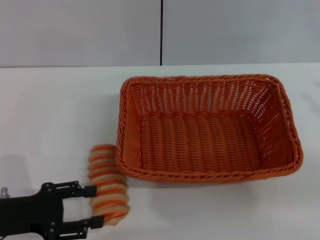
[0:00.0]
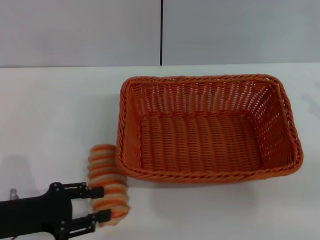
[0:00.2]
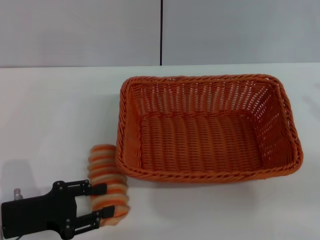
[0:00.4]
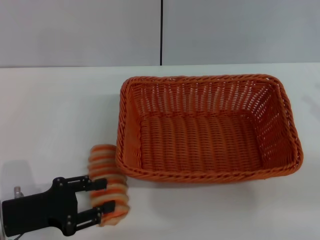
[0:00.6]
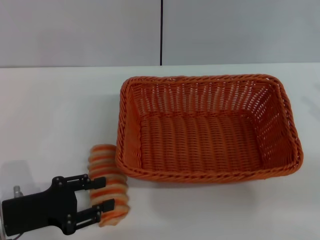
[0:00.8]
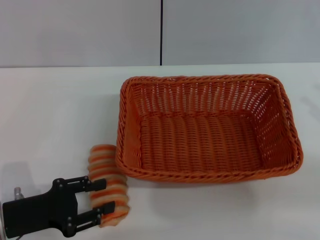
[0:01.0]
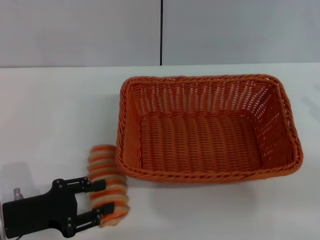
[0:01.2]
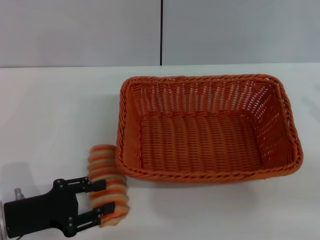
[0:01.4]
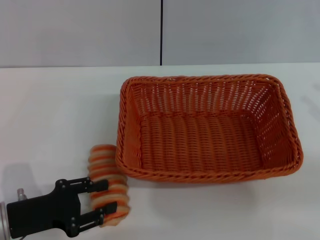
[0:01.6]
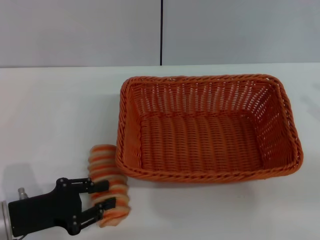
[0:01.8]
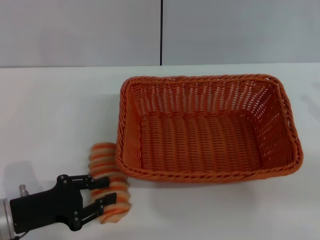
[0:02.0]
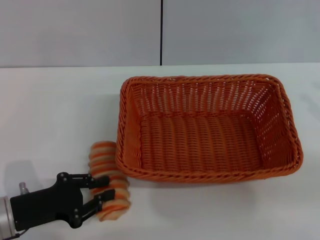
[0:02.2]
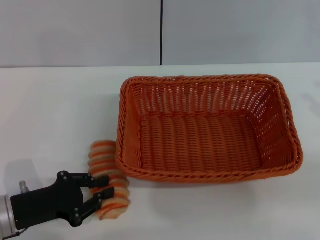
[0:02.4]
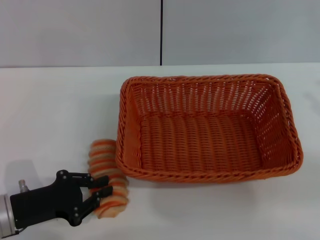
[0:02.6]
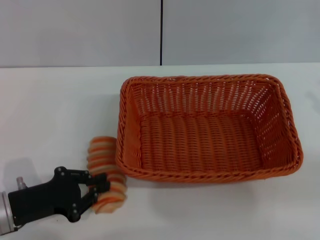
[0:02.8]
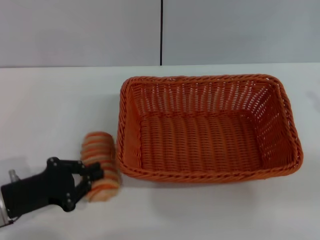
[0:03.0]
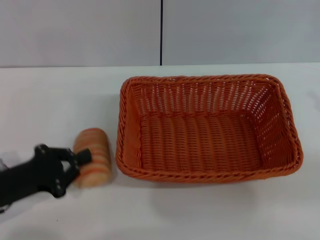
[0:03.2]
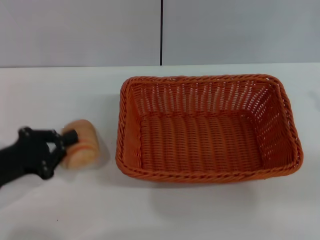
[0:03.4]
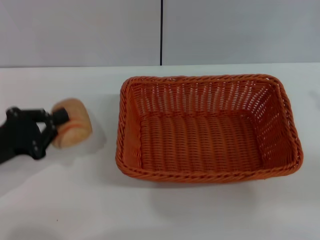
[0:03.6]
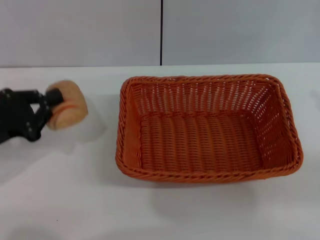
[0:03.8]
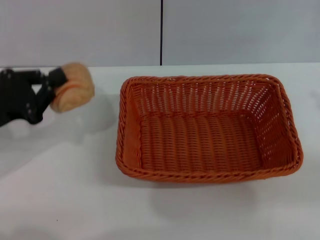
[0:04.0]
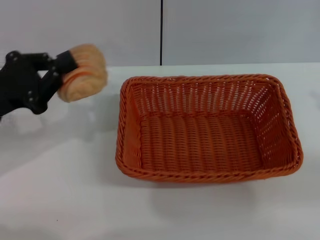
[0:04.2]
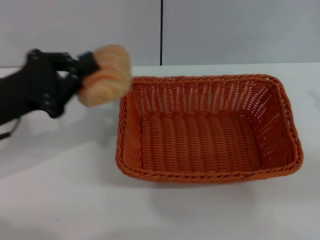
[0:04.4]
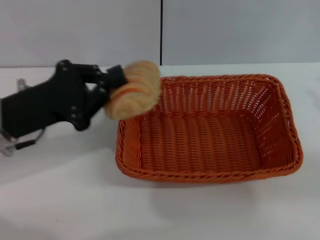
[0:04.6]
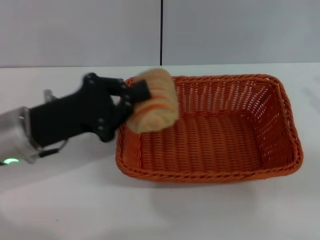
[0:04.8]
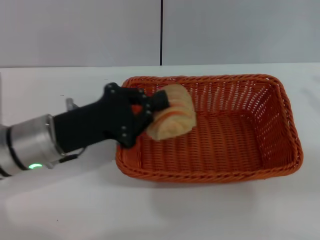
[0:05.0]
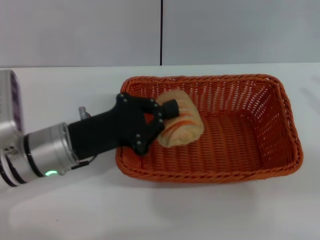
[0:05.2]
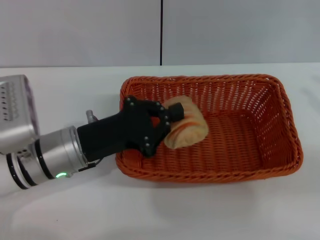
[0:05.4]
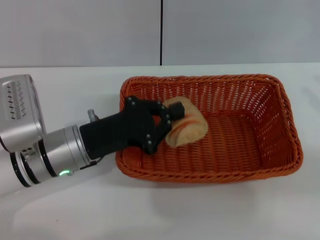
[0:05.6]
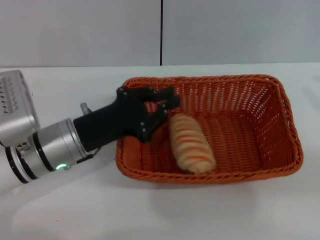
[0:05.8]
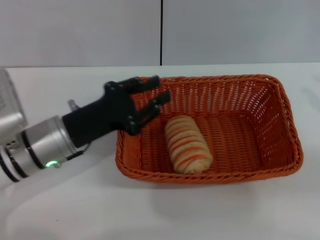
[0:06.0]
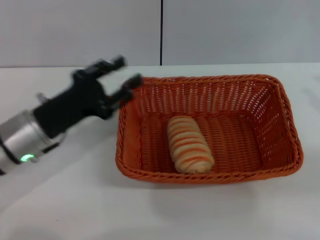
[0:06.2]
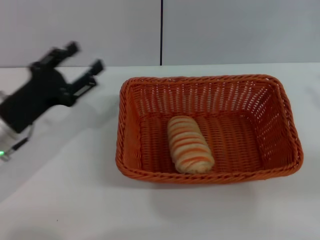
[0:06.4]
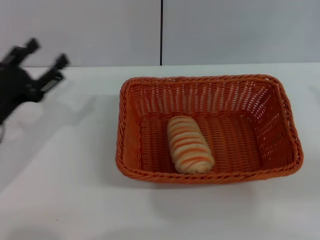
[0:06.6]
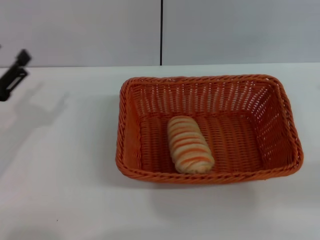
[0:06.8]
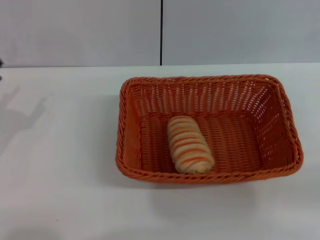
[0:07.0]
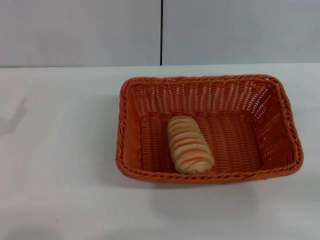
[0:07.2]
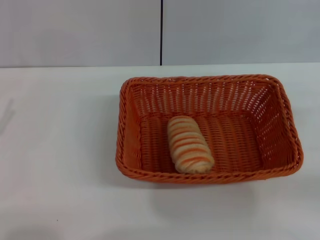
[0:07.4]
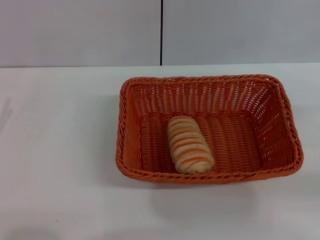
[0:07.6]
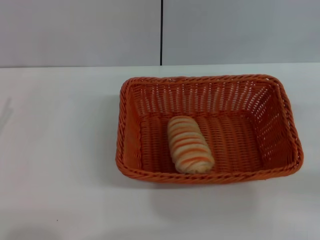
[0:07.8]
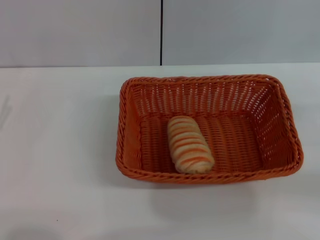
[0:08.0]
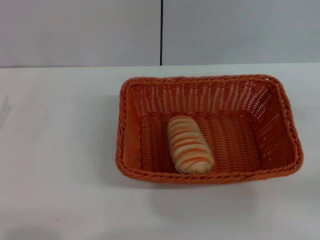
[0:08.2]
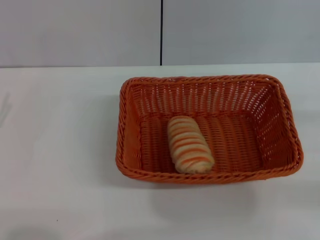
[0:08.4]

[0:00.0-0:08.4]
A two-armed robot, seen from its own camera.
Step, 0:00.0 to 0:03.4: Pick up the long bread with the left gripper.
Step, 0:03.6 to 0:06.0: Place the long bread into the light basket with the left gripper.
0:00.0 to 0:01.4: The grippers move only a little.
0:01.4 to 0:02.8: The left gripper closes its fingers.
0:02.8 to 0:04.2: The left gripper moves upward and forward, approximately 15 cm.
0:04.2 to 0:05.6: The left gripper is displaced to the right and downward by approximately 15 cm.
0:05.6 to 0:07.0: The left gripper heads to the left, covering approximately 15 cm, and opens up.

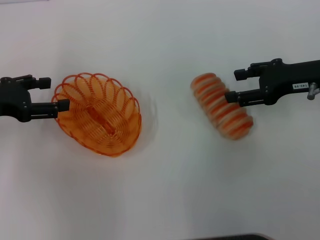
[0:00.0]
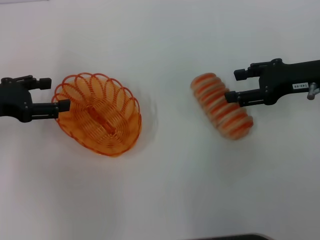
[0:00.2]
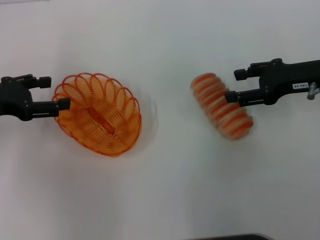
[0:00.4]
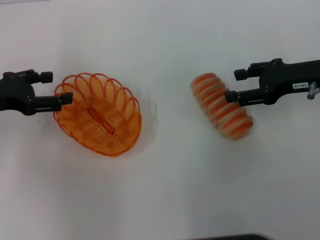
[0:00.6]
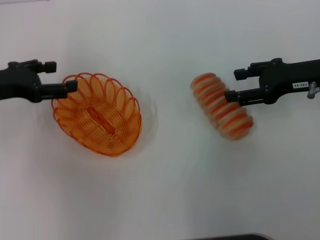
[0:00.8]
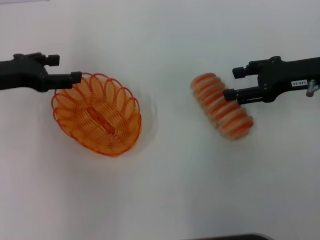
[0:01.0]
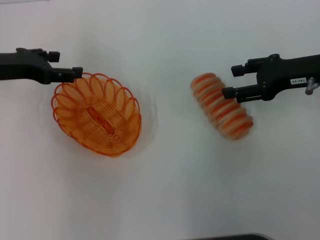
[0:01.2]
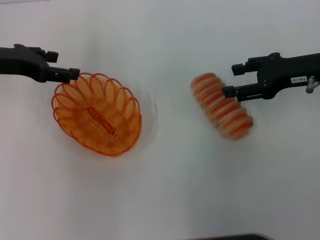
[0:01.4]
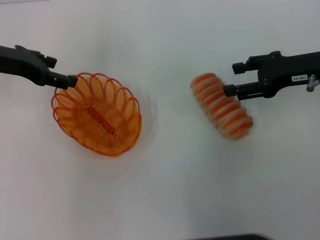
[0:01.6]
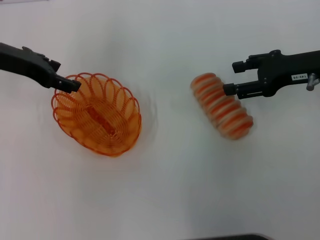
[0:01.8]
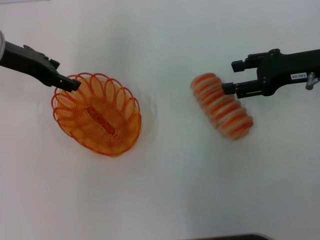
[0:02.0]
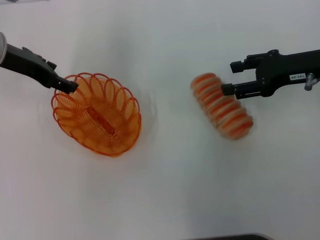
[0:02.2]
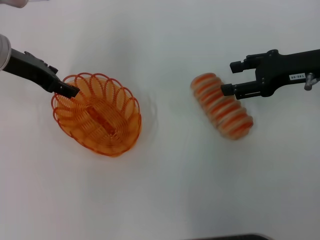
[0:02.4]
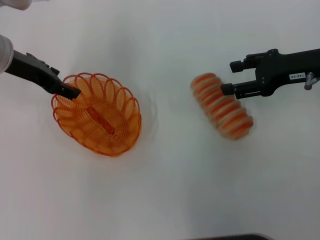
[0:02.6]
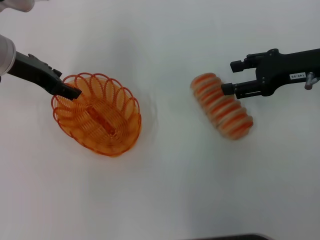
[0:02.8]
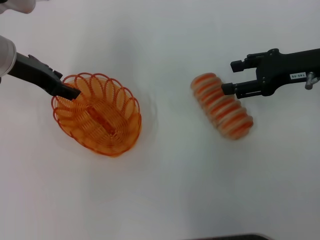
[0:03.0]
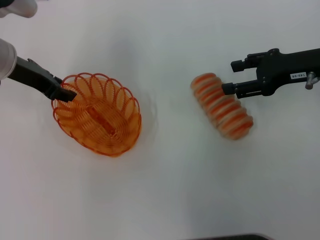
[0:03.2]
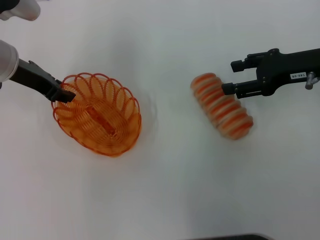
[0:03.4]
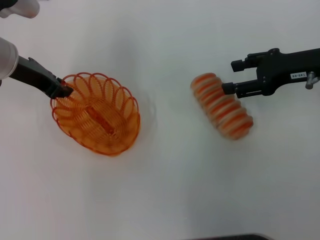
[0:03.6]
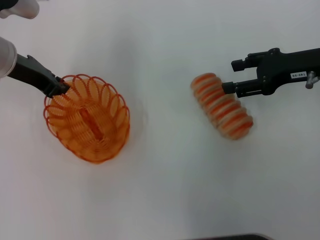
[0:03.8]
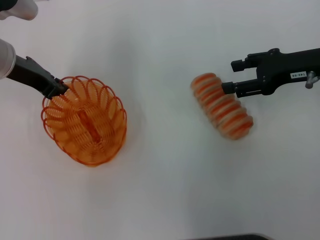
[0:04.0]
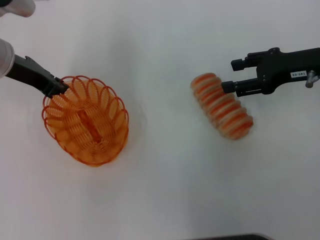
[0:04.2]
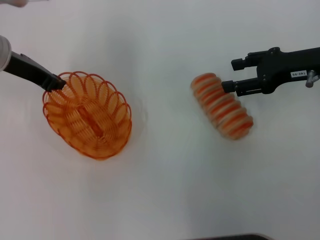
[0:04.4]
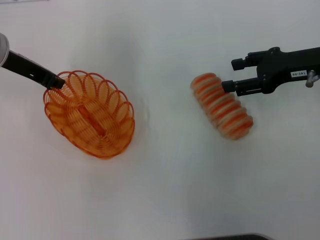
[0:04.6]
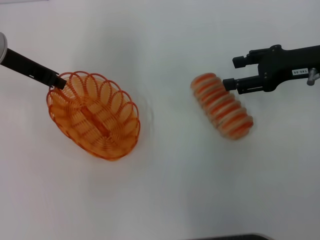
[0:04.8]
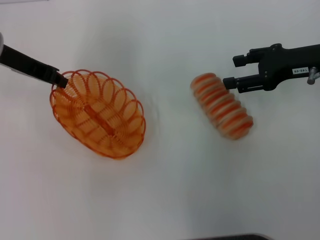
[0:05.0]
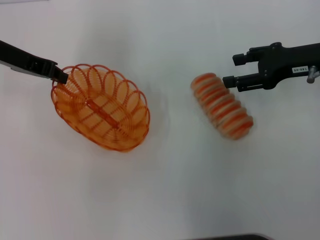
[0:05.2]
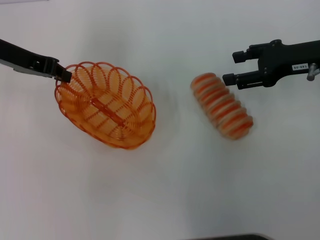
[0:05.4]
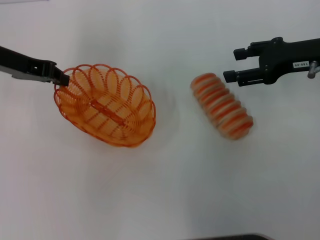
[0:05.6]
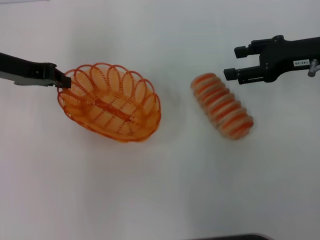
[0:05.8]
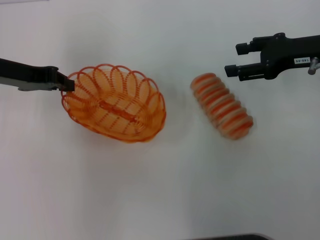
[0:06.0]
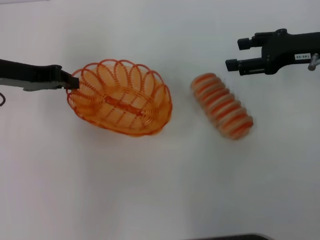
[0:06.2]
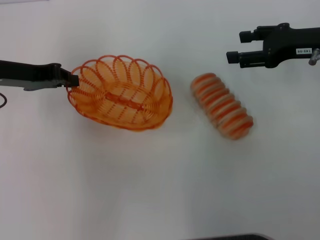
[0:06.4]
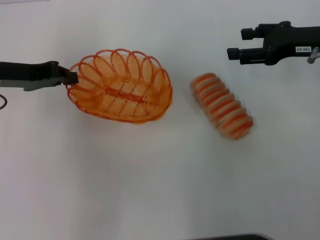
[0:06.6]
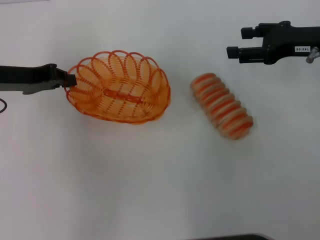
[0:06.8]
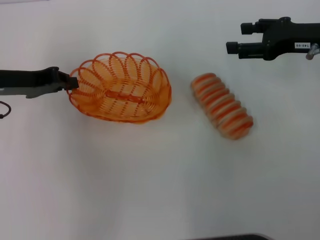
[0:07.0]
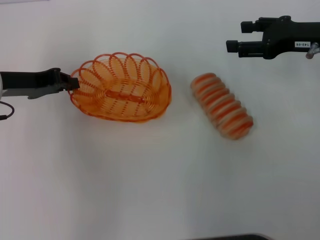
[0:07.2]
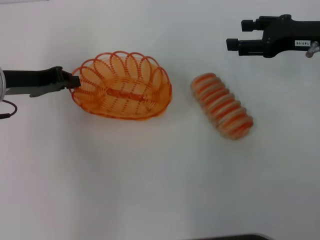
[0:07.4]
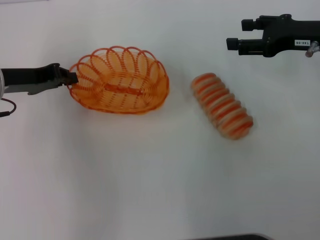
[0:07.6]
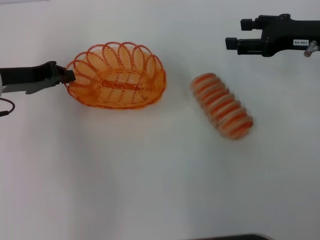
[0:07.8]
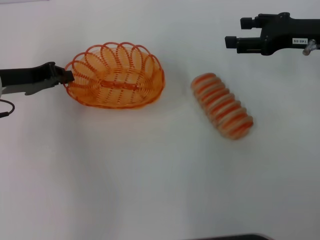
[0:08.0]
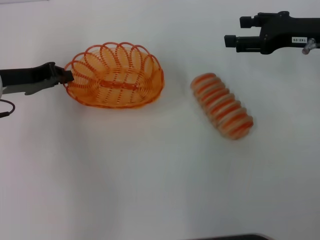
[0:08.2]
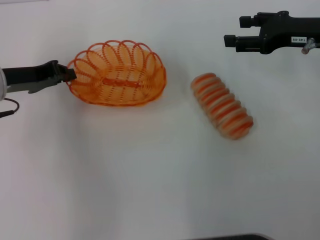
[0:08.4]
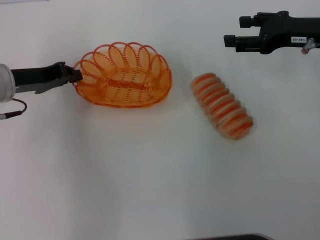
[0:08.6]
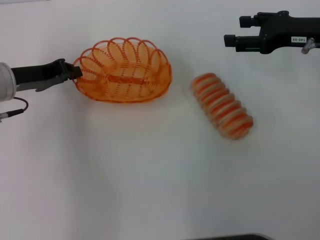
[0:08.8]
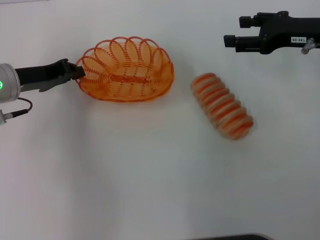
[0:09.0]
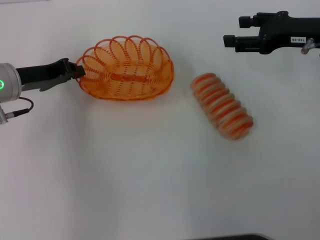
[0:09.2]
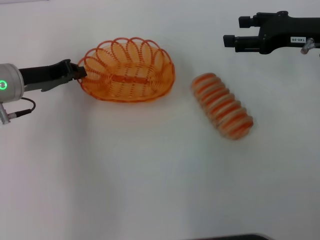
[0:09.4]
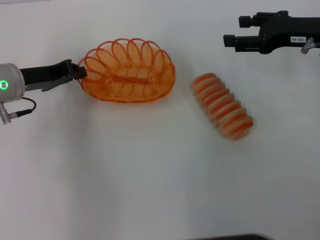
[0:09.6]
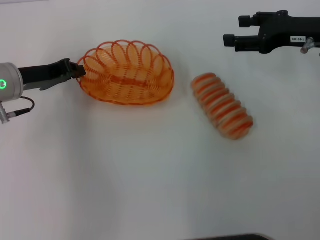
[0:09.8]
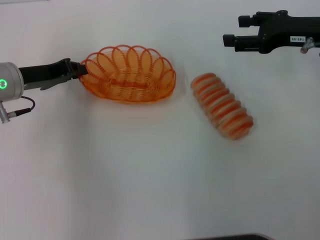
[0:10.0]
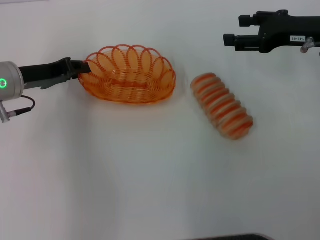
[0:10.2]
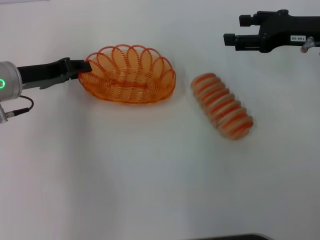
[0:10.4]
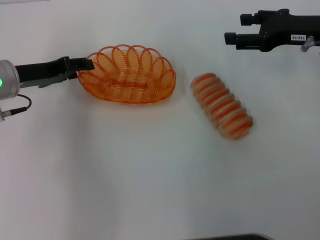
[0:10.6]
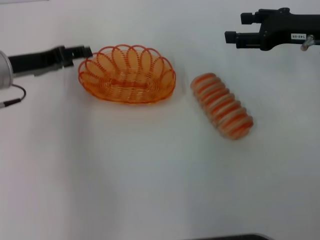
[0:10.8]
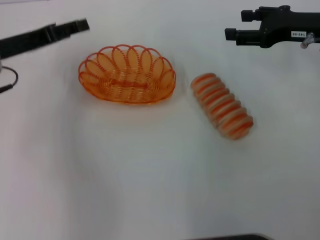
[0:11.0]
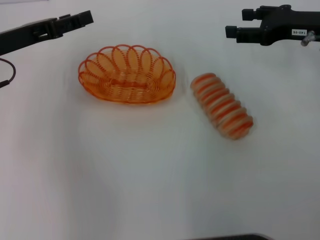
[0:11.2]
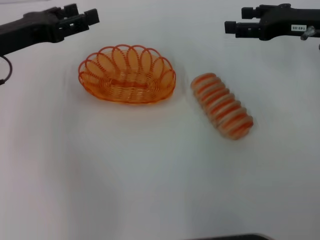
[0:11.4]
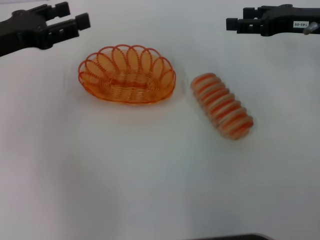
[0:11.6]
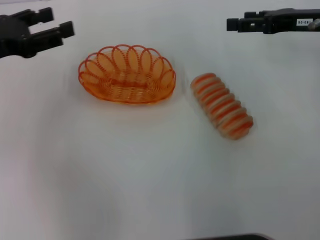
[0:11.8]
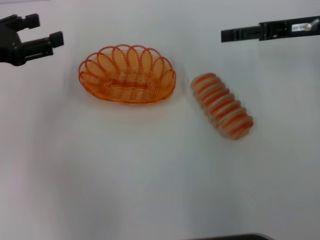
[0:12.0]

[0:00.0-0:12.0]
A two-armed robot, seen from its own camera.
Step, 0:00.0 to 0:04.4: Pick up the basket with the left gripper.
Step, 0:04.6 to 0:10.6: Place the basket in the center of view with the left gripper.
0:00.0 to 0:01.6: The left gripper heads forward, covering approximately 5 cm.
0:01.6 to 0:03.0: There are only small adjustments of the grippers.
0:03.0 to 0:04.4: The left gripper closes.
0:06.0 to 0:07.6: The grippers make only small movements.
0:07.6 to 0:09.0: The grippers make only small movements.
0:09.0 to 0:10.4: Both grippers stay put.
0:10.4 to 0:12.0: The left gripper shifts some 10 cm upward and to the left, and opens its fingers.

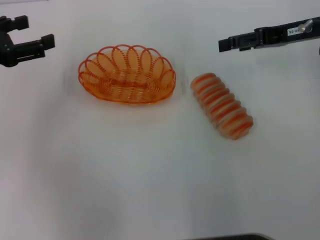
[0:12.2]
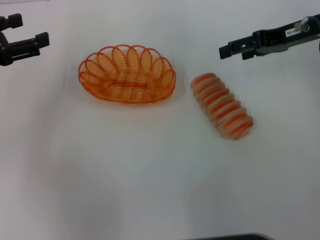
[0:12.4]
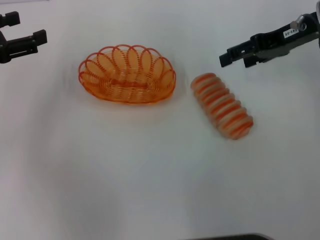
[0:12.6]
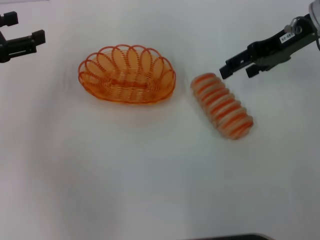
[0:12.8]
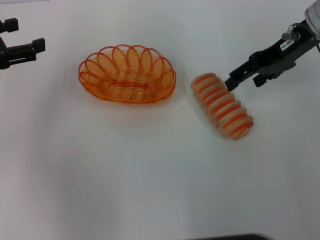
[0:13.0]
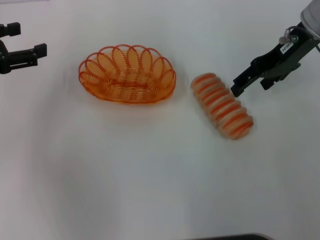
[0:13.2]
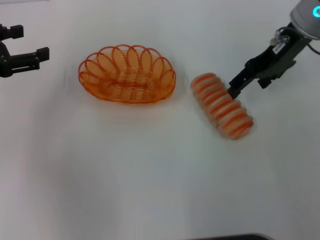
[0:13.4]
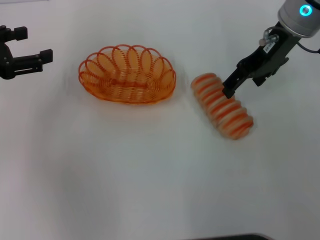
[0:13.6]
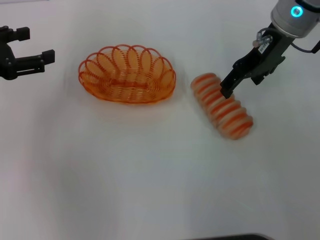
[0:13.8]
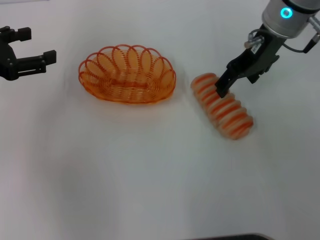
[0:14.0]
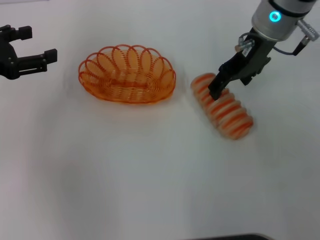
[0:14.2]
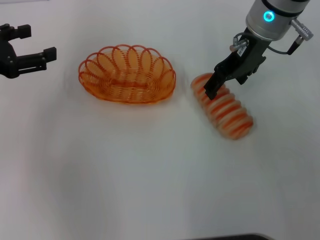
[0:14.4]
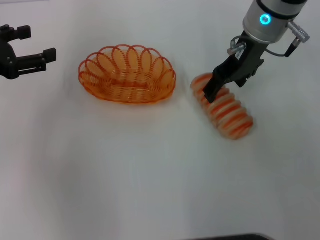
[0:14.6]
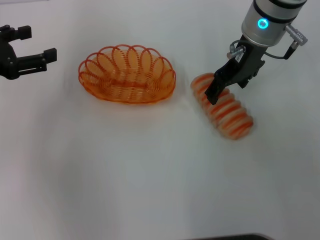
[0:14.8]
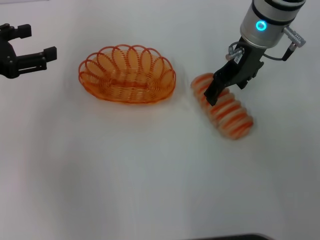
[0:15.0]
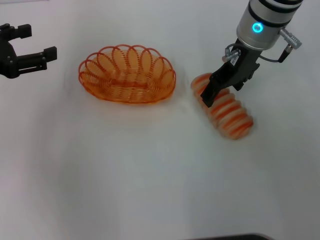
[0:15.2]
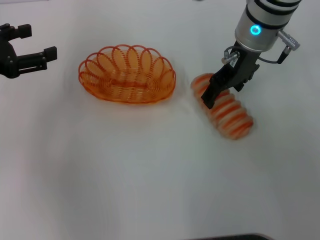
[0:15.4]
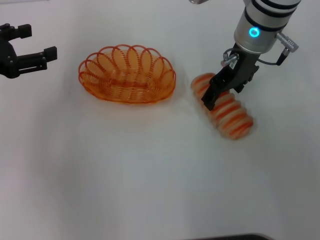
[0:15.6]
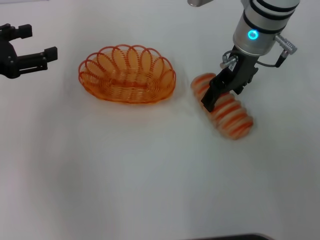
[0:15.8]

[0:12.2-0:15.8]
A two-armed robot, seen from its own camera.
0:12.2 to 0:14.0: The right gripper goes roughly 10 cm to the left.
0:14.0 to 0:15.8: The grippers move only a little.
